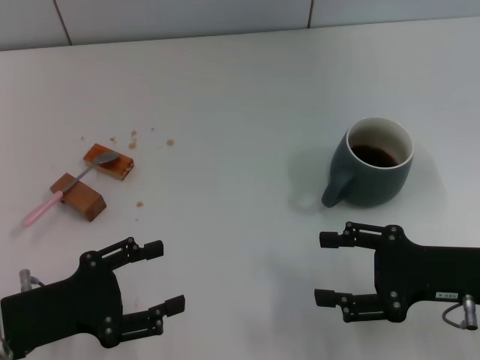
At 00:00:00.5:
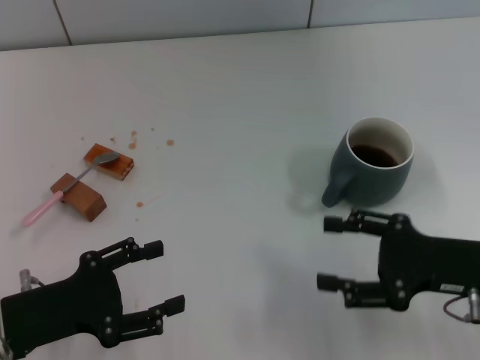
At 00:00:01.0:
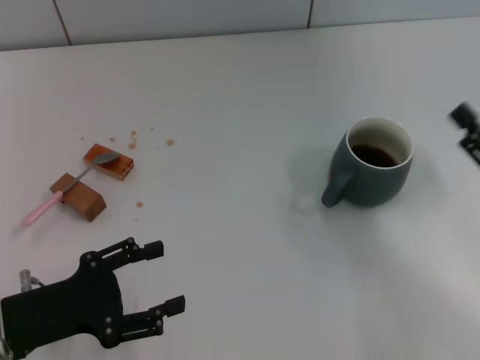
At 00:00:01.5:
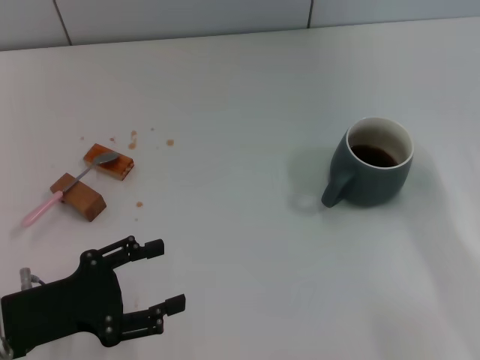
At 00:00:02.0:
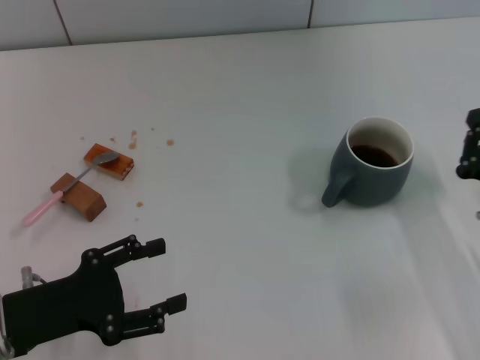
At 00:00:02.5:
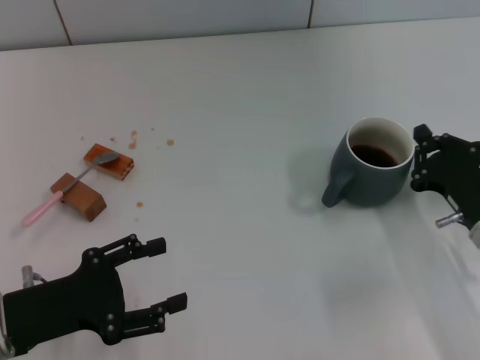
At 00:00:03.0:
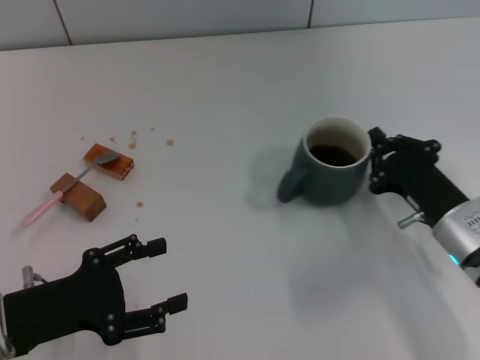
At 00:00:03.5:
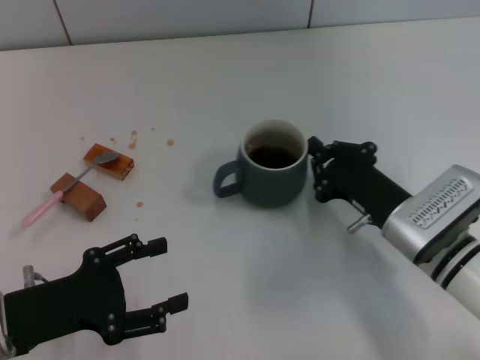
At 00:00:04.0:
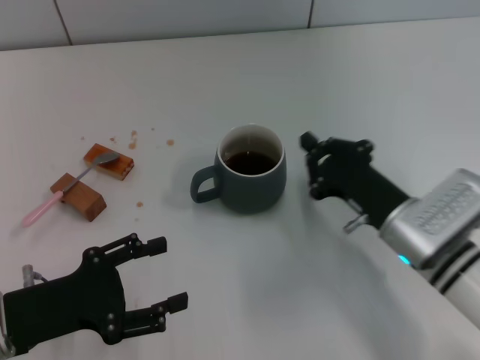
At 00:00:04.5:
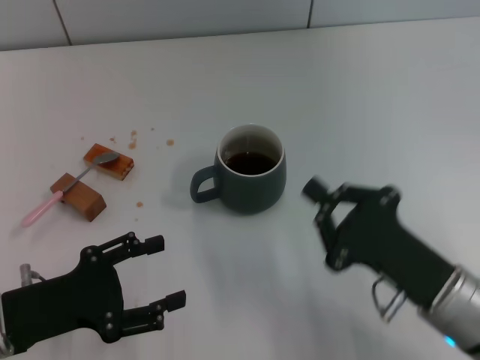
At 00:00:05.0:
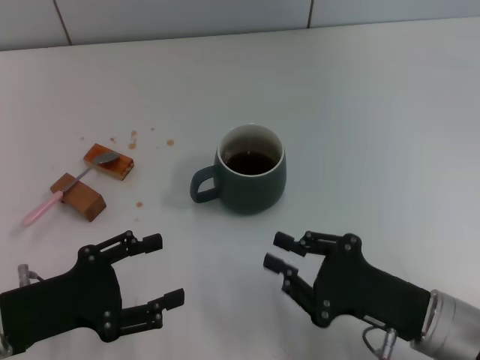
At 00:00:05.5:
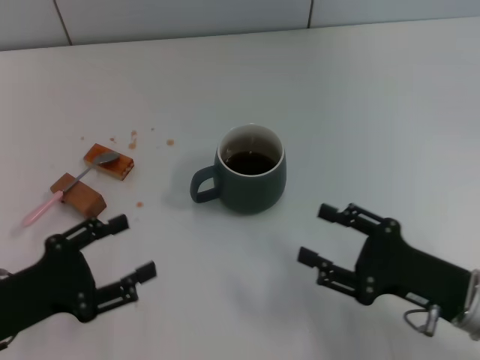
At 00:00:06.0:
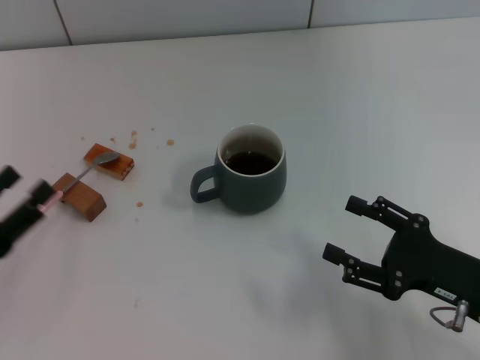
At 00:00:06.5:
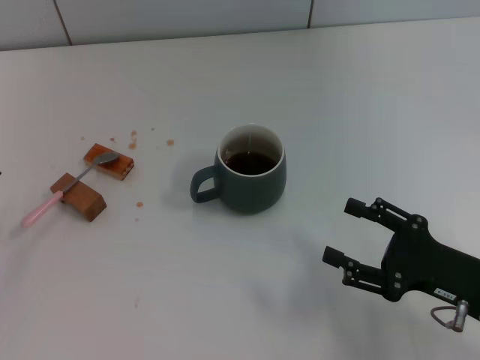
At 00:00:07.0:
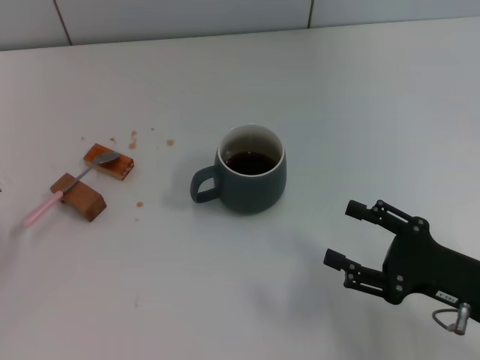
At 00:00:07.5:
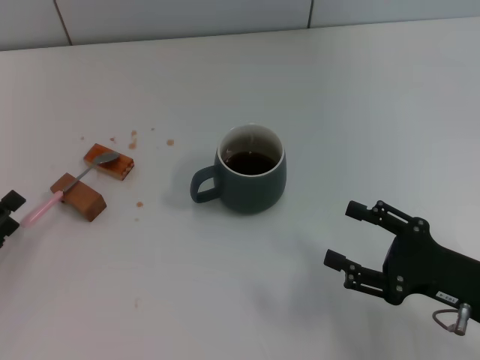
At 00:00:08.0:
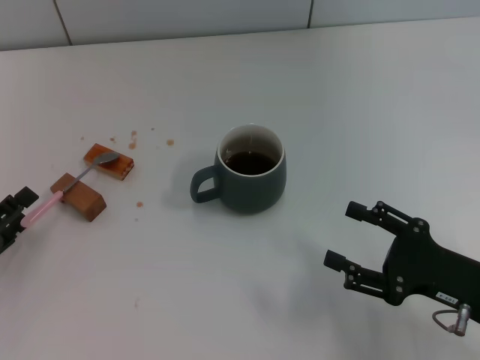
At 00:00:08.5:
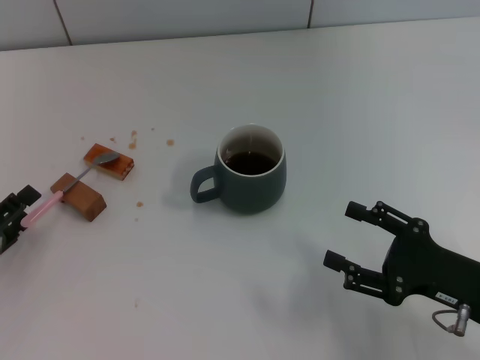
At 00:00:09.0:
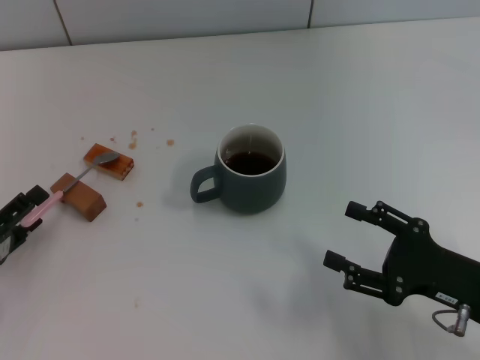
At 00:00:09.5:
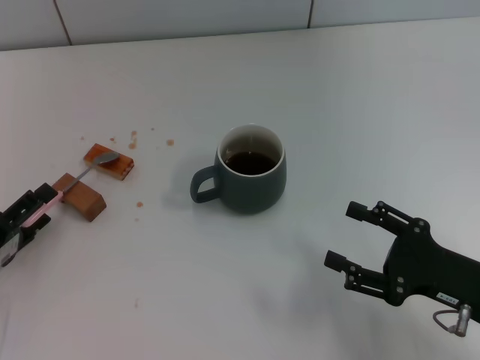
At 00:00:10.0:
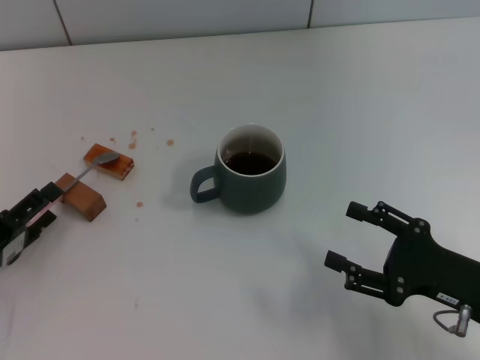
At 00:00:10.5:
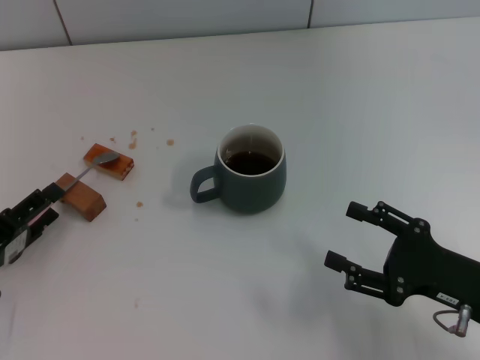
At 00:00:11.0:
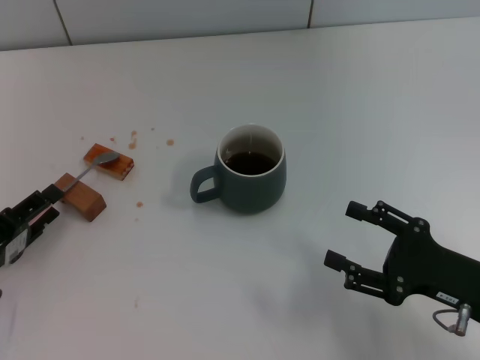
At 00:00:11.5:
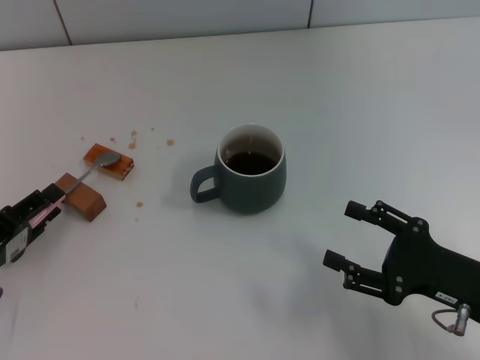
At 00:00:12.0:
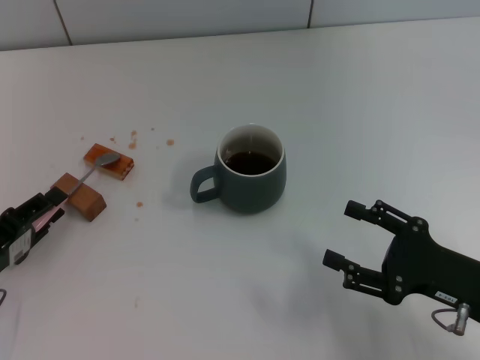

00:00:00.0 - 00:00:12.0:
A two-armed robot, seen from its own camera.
Task of the whole recording: Move the grey cup to the center, lift the pink spoon, stir it three times in the cup, and put the spoon into the cup.
Step, 00:00:00.0 - 00:00:04.0: Move the cup with coffee to the center of view with the right gripper.
00:00:00.0 - 00:00:02.0: The right gripper is displaced downward by approximately 5 cm, and closes its fingers.
00:00:02.0 - 00:00:04.0: The right gripper shifts some 10 cm to the left.
00:00:04.0 - 00:00:06.0: The left gripper moves to the left, approximately 5 cm, while the right gripper shifts some 10 cm to the right and backward, and opens its fingers.
00:00:08.0 - 00:00:10.0: The grippers make only small movements.
00:00:10.0 - 00:00:12.0: The left gripper closes up.

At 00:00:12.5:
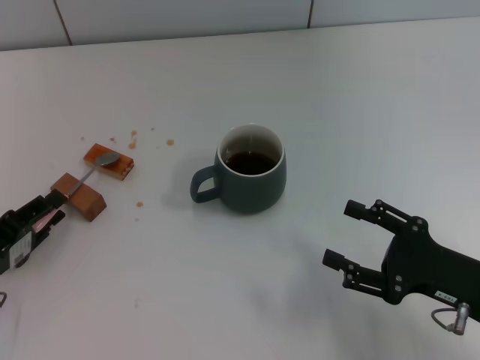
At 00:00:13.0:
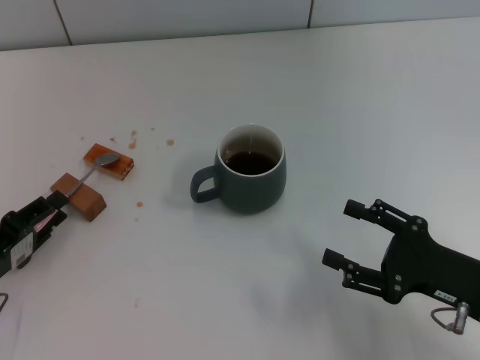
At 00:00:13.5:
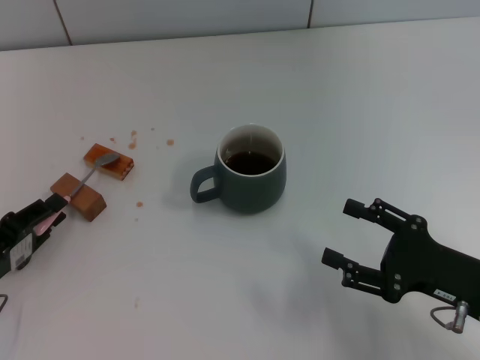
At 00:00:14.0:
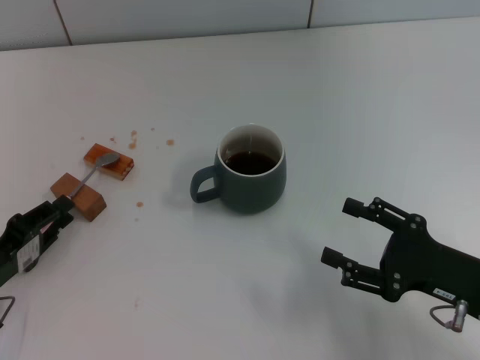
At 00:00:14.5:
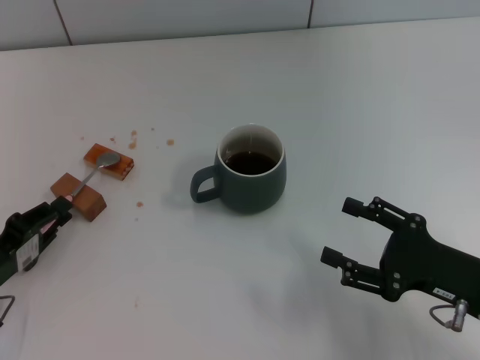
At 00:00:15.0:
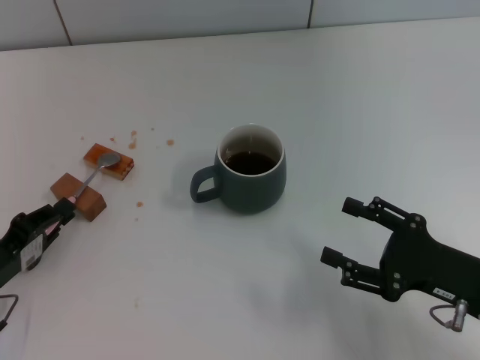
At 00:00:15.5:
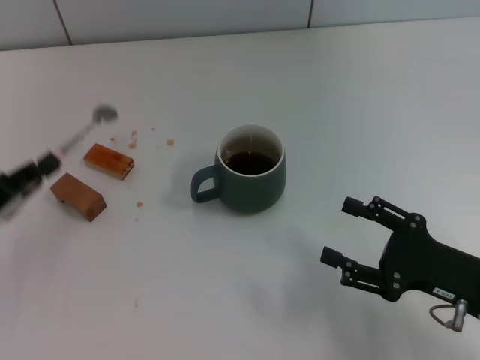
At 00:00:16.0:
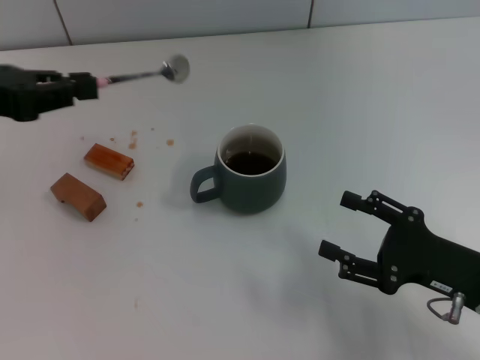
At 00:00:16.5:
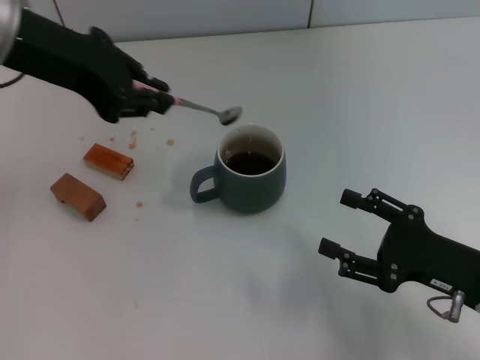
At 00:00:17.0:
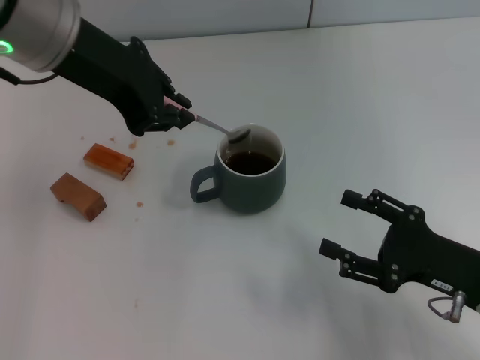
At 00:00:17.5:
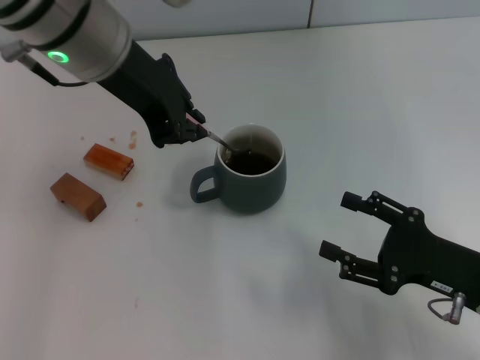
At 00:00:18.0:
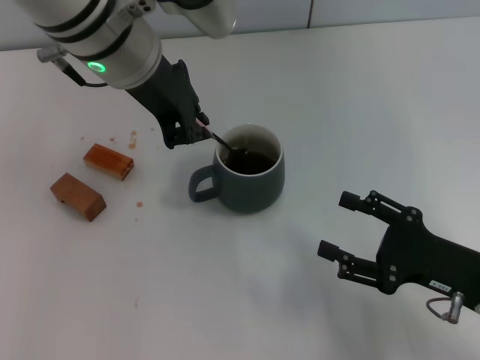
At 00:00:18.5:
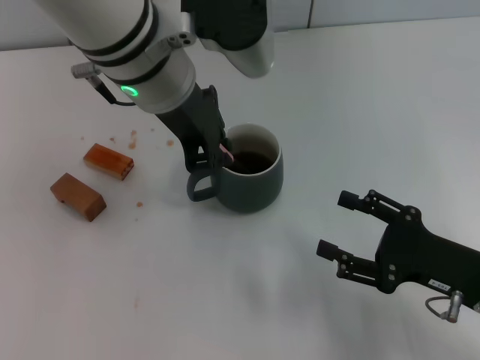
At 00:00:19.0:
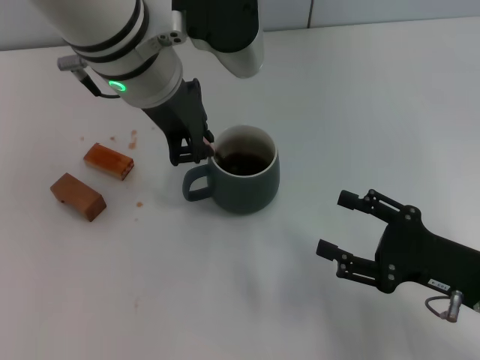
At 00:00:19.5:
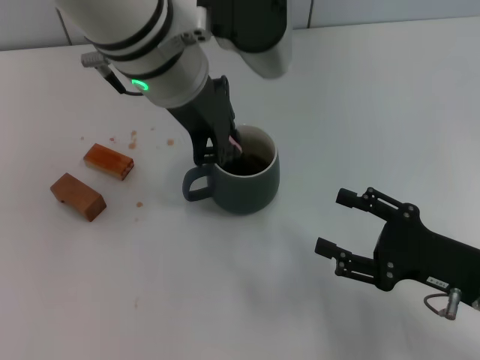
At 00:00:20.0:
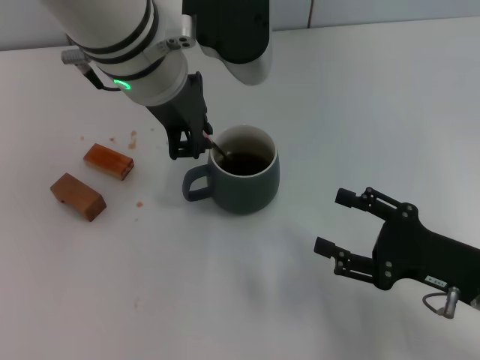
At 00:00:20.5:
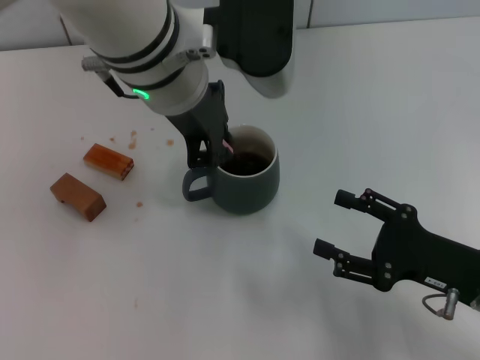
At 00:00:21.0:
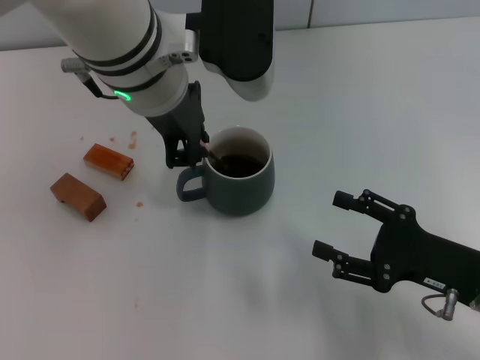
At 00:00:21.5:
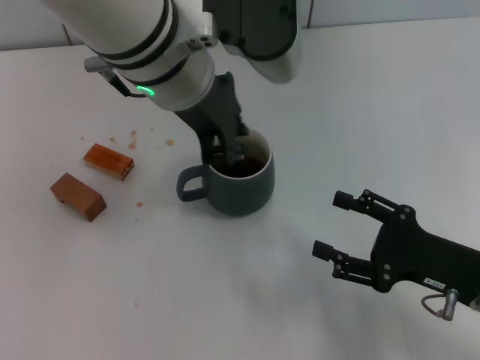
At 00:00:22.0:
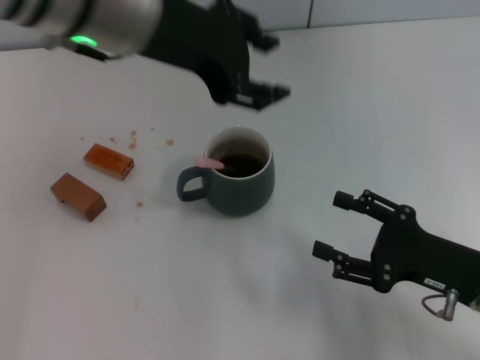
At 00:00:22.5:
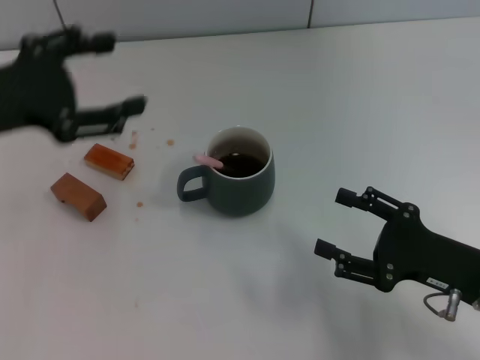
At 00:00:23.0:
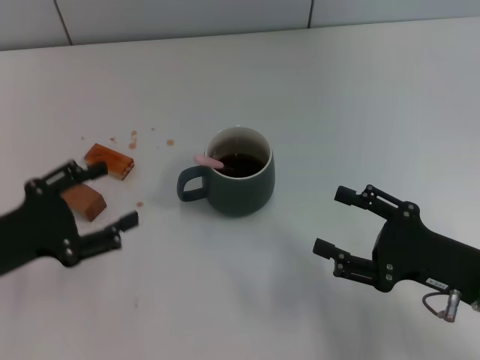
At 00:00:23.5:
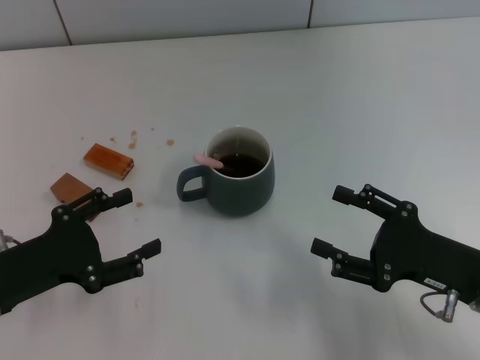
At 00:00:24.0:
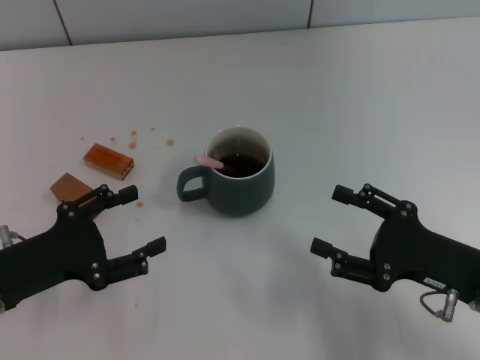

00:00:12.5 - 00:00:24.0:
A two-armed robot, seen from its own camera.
Task of the whole recording: Move the grey cup to the center, lift the pink spoon, stir it three times in the cup, and put the spoon into the cup.
Step, 00:00:12.5 - 00:00:15.0: Pick up the spoon with the left gripper.
Step, 00:00:15.5 - 00:00:21.5: Stir the coffee in the cup with the left gripper.
00:00:12.5 - 00:00:14.5: Neither gripper changes place.
00:00:14.5 - 00:00:16.5: The left gripper shifts approximately 35 cm upward, forward and to the right.
00:00:16.5 - 00:00:18.5: The left gripper moves to the right, approximately 10 cm.
00:00:18.5 - 00:00:20.0: There are only small adjustments of the grippers.
00:00:20.0 - 00:00:22.0: The left gripper changes place by about 5 cm, and opens up.
00:00:22.0 - 00:00:24.0: The left gripper travels downward, to the left and backward by roughly 30 cm, and opens its fingers.
